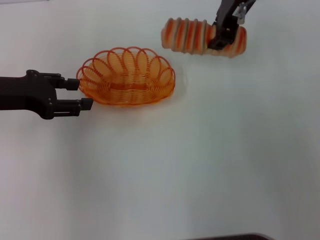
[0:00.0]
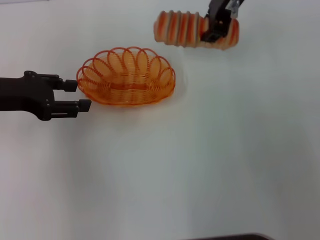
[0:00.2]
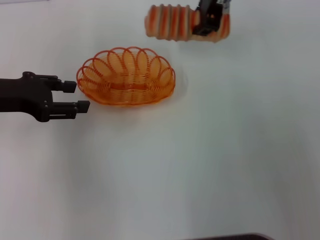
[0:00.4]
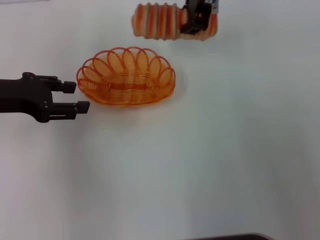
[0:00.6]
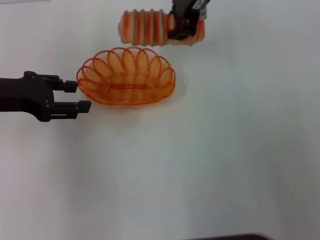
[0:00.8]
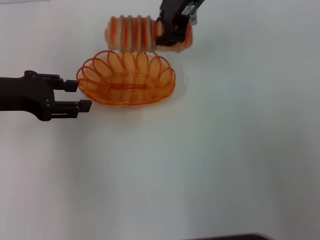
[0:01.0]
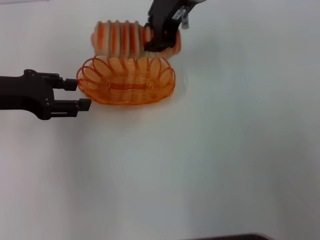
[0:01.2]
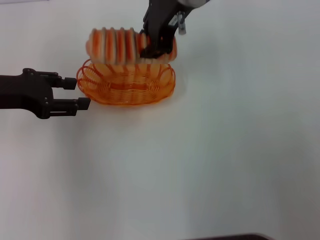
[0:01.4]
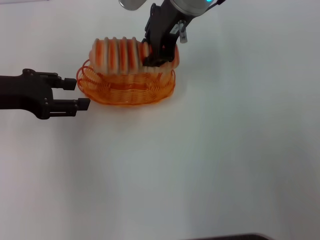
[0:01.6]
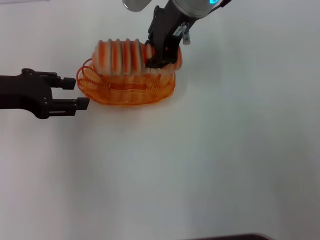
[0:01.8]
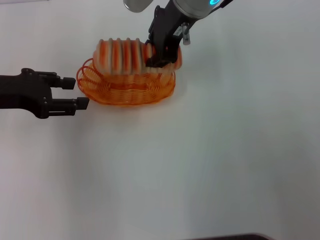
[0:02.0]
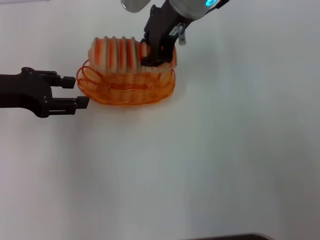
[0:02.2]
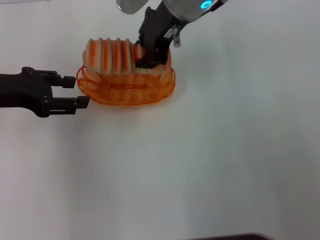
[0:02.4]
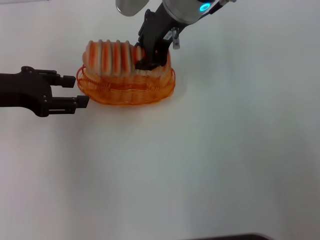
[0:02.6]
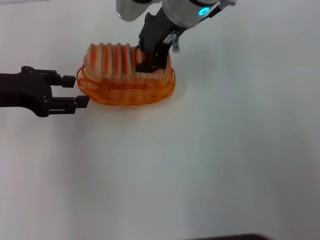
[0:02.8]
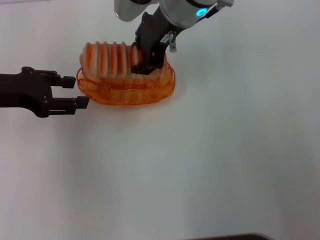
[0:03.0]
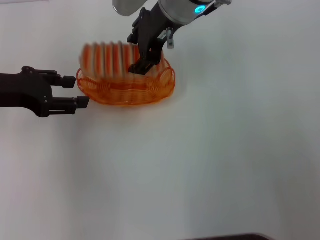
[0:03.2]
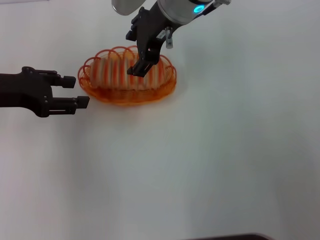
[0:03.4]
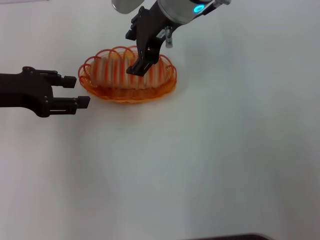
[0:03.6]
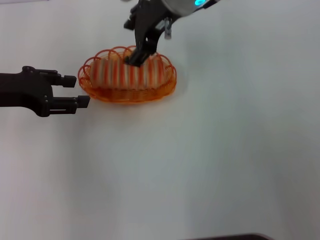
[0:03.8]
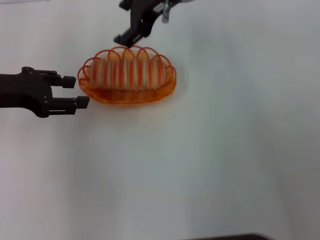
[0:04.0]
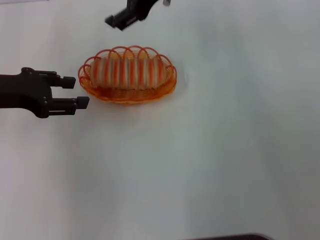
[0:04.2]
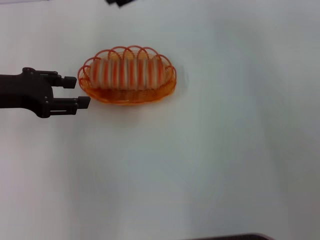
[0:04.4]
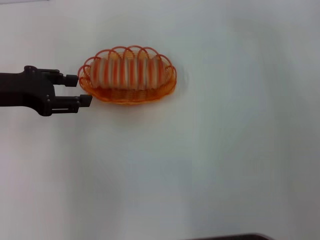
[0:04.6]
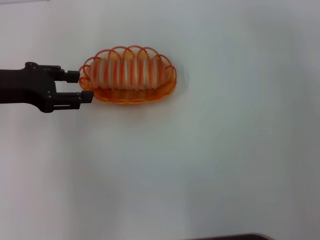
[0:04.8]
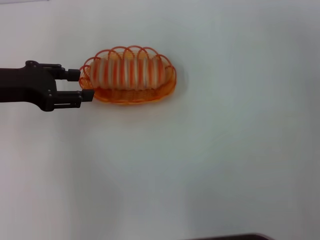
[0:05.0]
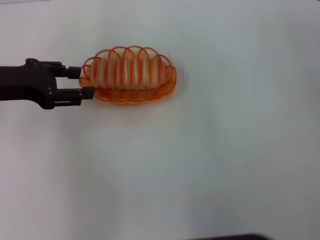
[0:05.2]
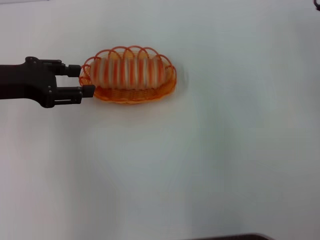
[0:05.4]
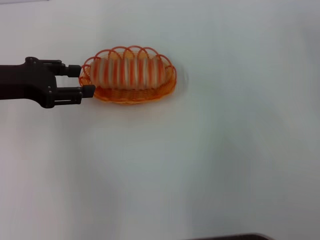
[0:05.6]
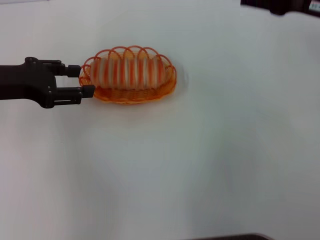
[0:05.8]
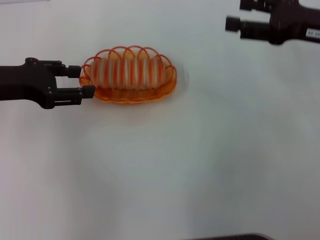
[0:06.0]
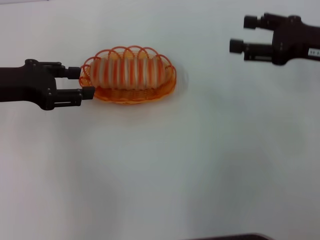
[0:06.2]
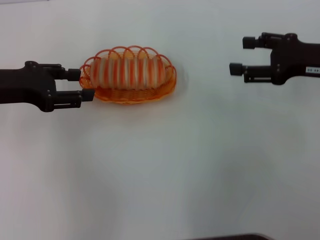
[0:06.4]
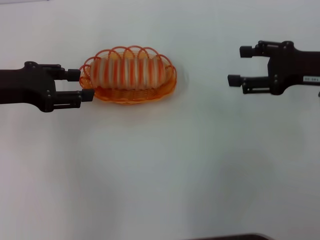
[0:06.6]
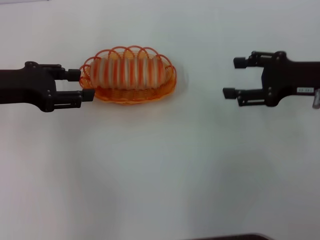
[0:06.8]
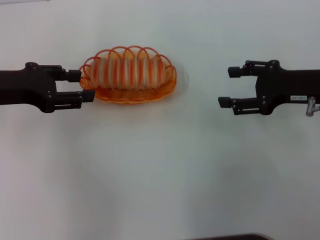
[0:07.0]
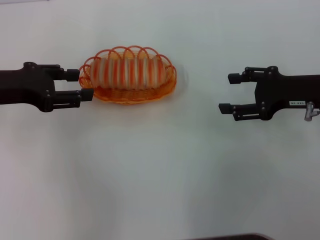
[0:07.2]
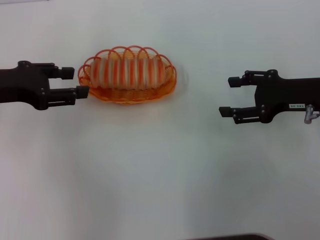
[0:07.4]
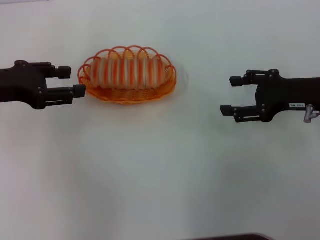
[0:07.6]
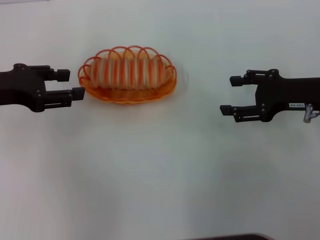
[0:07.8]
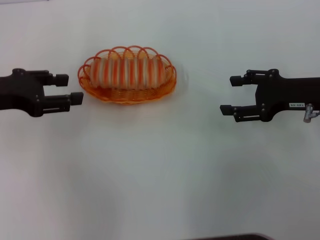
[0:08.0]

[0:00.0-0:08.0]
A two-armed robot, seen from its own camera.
Step, 0:00.0 to 0:04.2: Place the long bread into the basket with the right gripper.
0:00.0 to 0:01.6: The right gripper shifts some 5 cm to the left.
0:01.6 to 0:03.2: There are only small adjustments of the grippers.
0:03.2 to 0:04.8: The right gripper moves to the right, roughly 15 cm, and opens.
0:04.8 to 0:06.4: The right gripper heads to the right, downward and backward, covering approximately 20 cm.
0:06.4 to 0:08.0: The grippers move only a little.

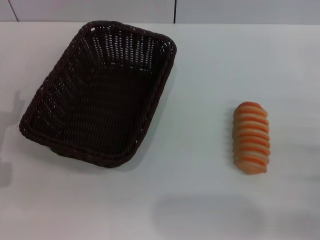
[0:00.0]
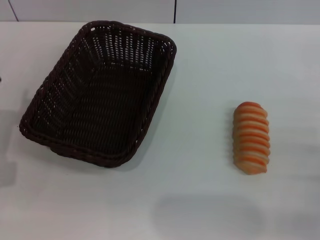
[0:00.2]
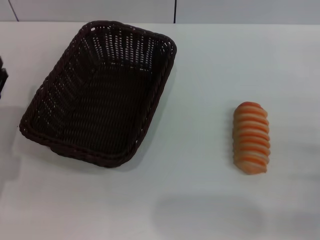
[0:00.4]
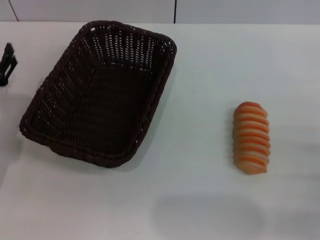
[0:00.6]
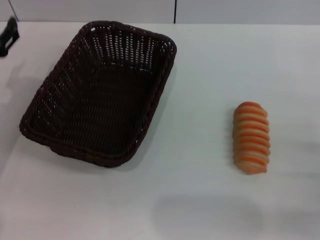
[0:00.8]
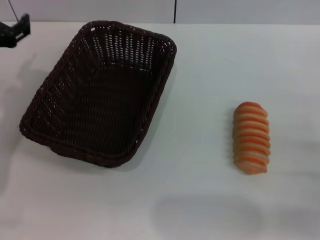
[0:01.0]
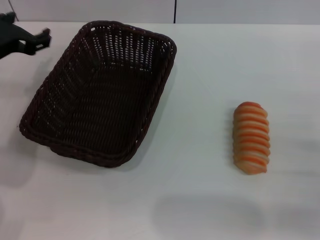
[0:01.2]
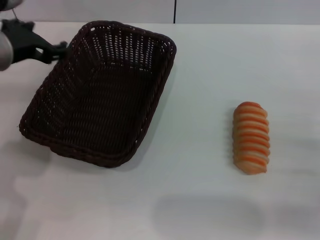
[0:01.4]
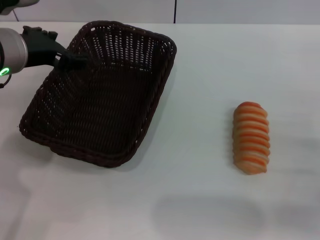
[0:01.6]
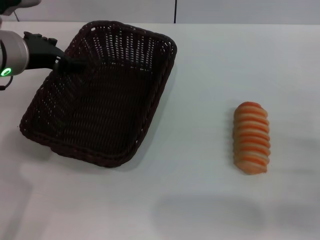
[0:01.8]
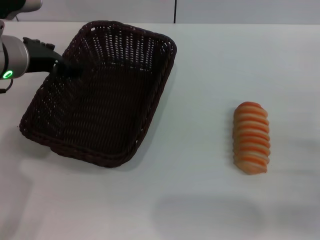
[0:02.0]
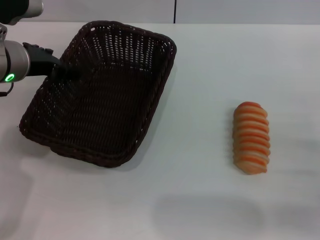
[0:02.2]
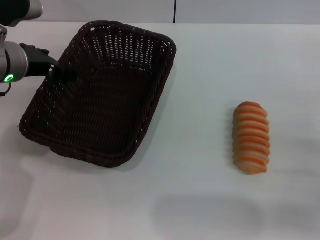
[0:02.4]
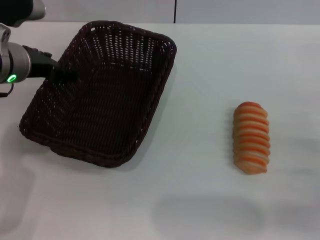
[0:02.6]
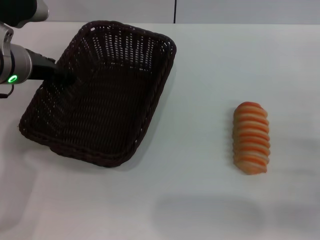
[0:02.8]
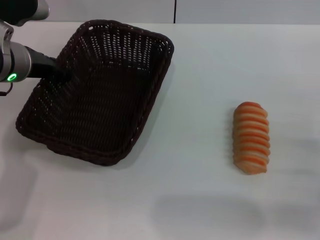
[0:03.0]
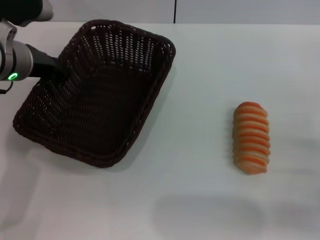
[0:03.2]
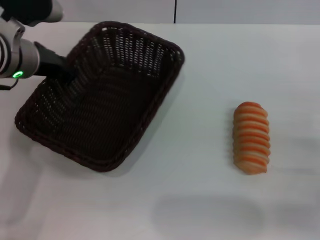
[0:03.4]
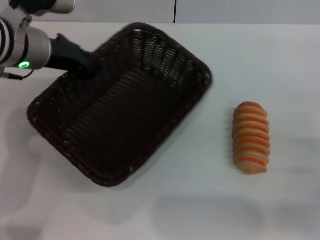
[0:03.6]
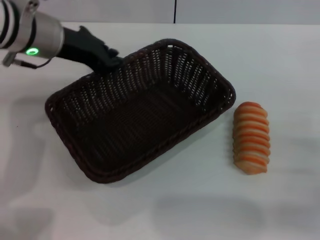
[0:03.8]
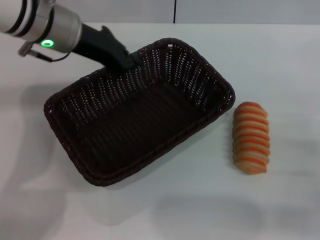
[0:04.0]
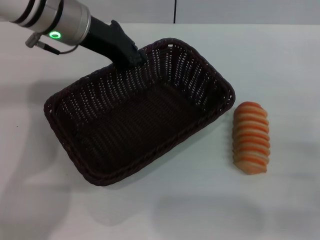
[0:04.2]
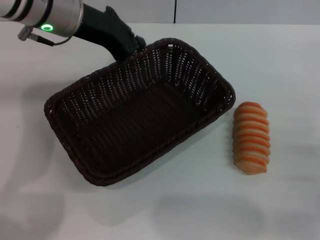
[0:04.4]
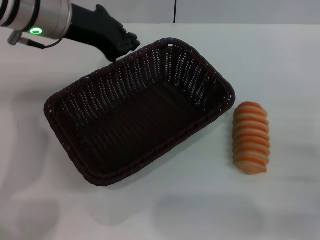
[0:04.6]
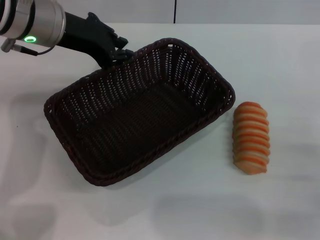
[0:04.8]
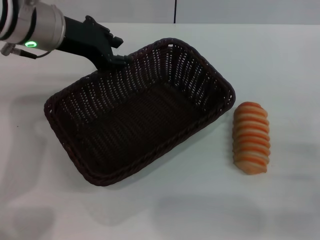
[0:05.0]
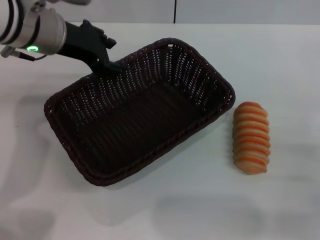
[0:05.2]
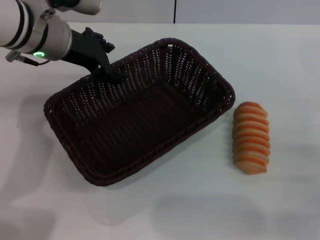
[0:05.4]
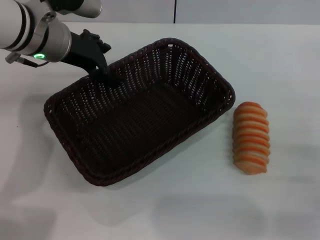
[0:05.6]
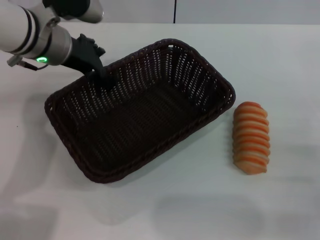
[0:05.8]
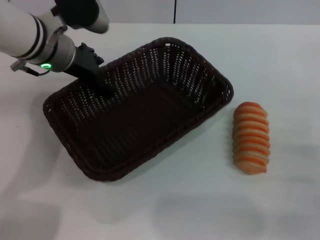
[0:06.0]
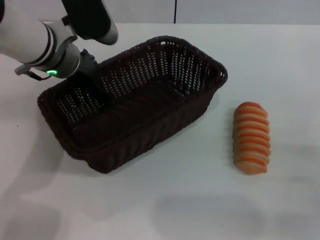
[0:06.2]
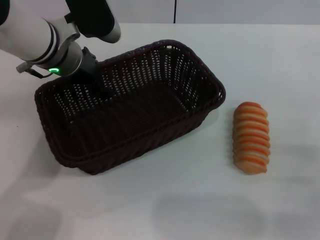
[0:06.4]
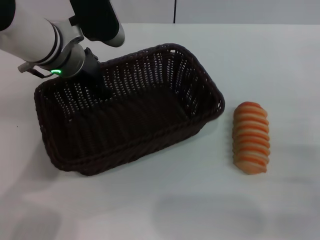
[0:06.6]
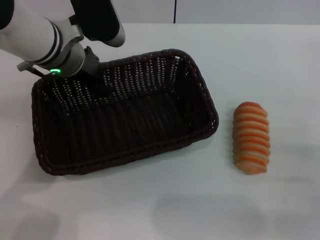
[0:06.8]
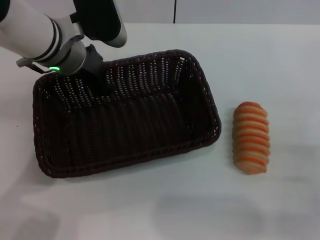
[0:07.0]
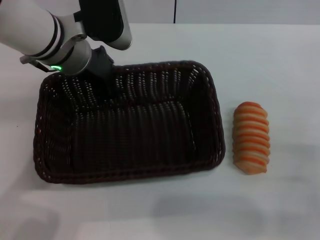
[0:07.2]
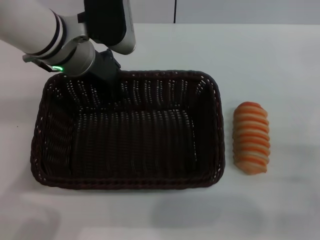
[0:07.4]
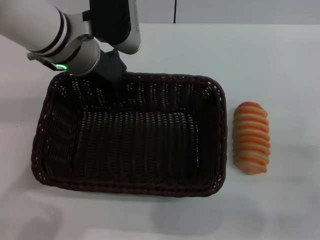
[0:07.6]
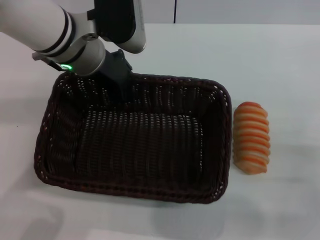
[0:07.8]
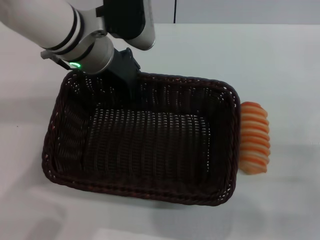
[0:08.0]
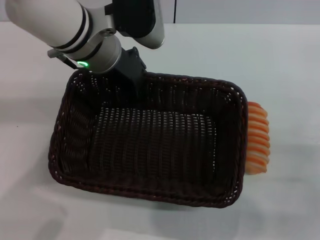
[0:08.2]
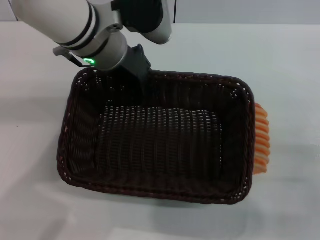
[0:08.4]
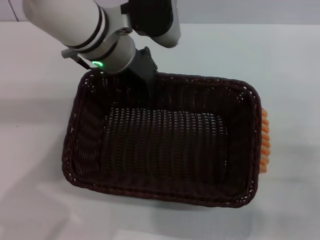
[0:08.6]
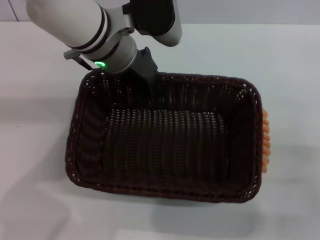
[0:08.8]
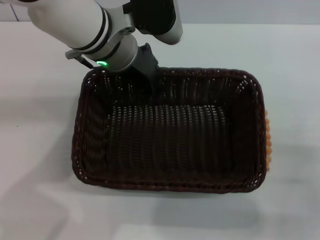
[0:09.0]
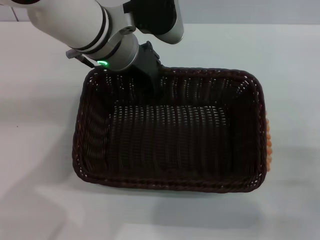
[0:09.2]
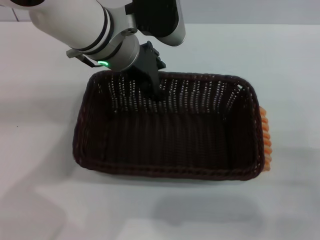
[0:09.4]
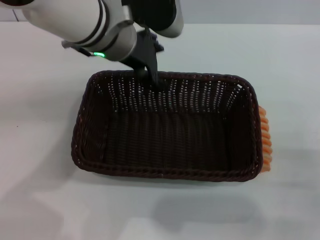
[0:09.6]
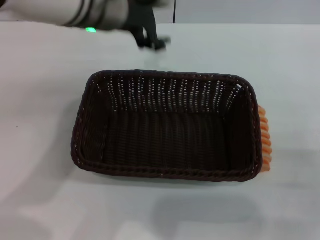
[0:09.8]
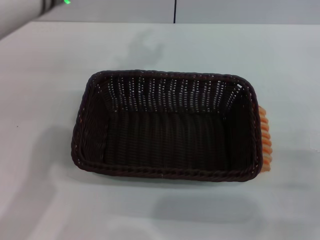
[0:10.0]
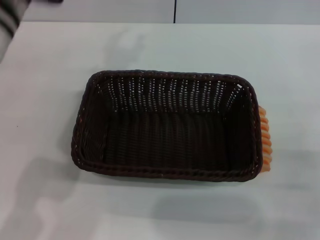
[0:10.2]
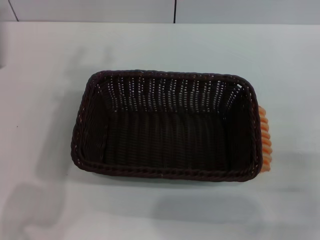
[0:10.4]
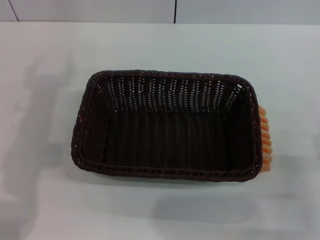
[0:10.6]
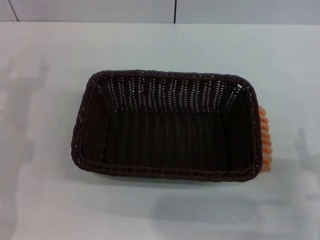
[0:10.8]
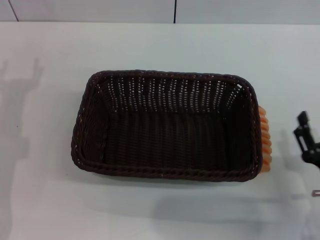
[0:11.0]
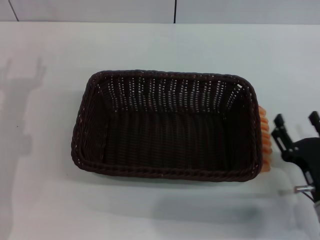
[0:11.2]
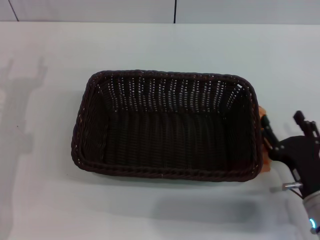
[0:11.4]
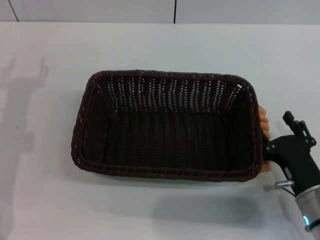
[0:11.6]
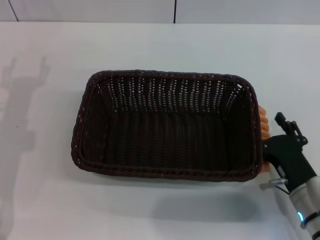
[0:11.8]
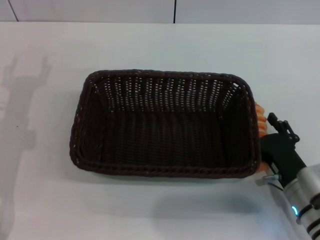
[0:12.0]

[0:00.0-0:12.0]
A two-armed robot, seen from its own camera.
Step, 0:00.0 to 0:02.8: Grasp the basket with the left gripper.
Step, 0:03.2 to 0:09.6: Place the basket in the center of the table with the left gripper.
0:00.0 to 0:01.6: The left gripper travels upward, to the right and forward by some 20 cm.
0:01.6 to 0:03.0: The left gripper shifts by roughly 5 cm.
0:03.0 to 0:04.4: The left gripper moves upward and to the right, roughly 10 cm, and closes its fingers.
0:04.4 to 0:06.0: The left gripper goes some 5 cm downward, and opens its fingers.
0:06.0 to 0:07.6: The left gripper ends up roughly 5 cm from where it was, and closes its fingers.
0:09.0 to 0:10.4: The left gripper shifts some 15 cm to the left and backward, and opens.
0:10.4 to 0:12.0: The right gripper goes about 5 cm to the left. Meanwhile the left gripper shifts about 15 cm downward and to the left.

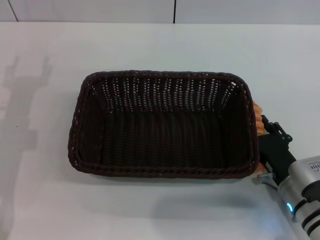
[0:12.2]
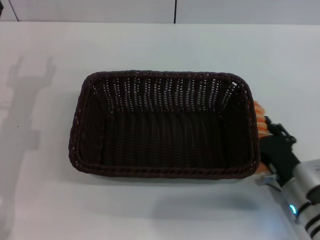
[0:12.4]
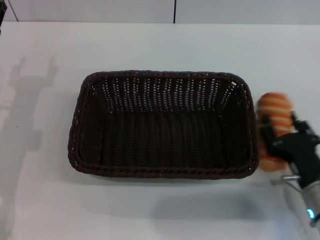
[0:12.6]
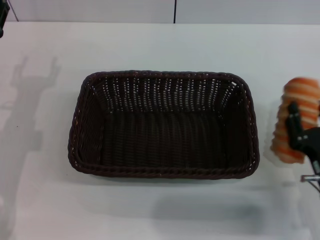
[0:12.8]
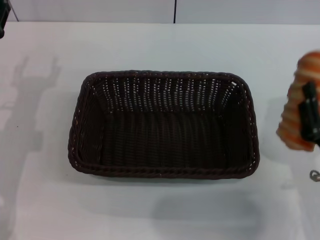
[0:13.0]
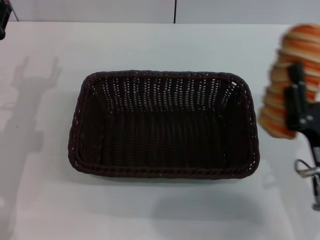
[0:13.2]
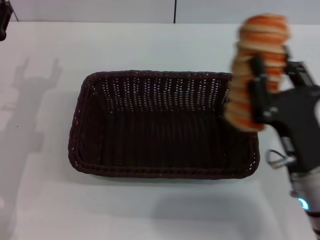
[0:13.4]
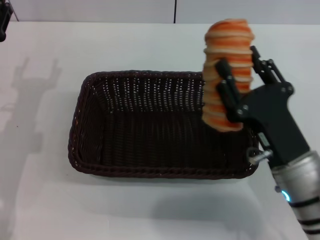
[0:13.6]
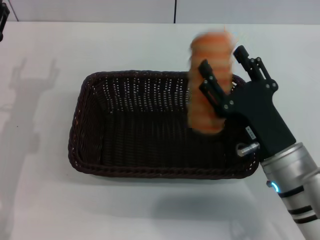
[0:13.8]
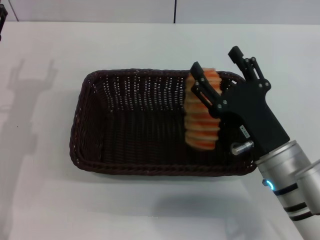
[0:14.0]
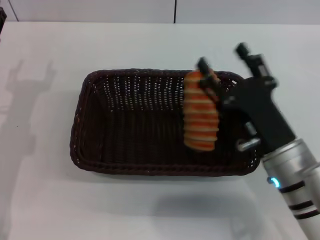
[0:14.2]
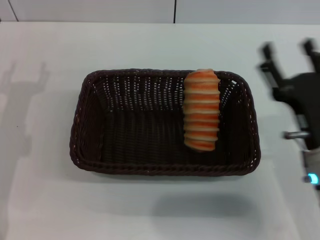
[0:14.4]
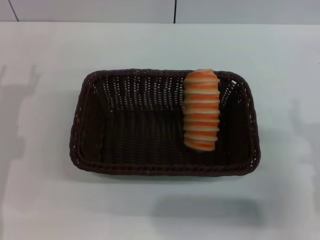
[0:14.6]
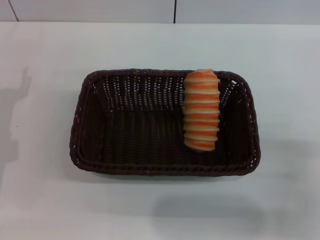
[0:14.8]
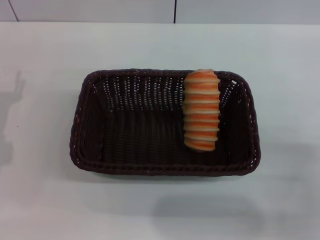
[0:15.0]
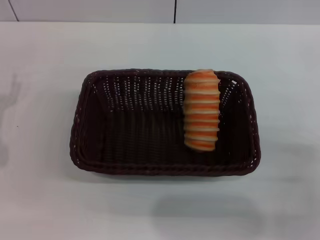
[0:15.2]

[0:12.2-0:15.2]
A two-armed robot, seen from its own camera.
Step, 0:12.4 to 0:14.4: Place the long bread in the basket with right gripper.
0:12.2 to 0:13.8: The right gripper is displaced upward and to the left by approximately 10 cm, and closes.
0:13.8 to 0:15.2: The right gripper is displaced to the right by roughly 15 cm, and opens its fingers. Meanwhile the left gripper moves some 5 cm.
